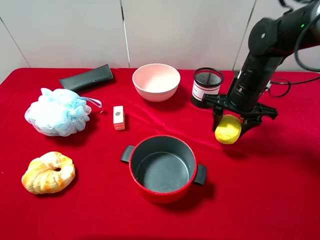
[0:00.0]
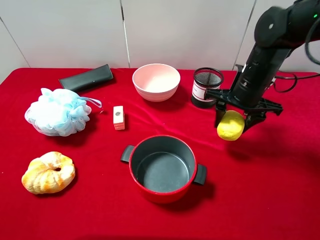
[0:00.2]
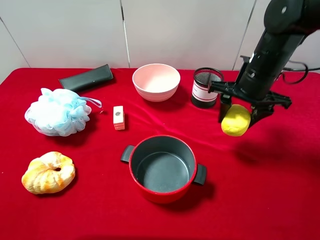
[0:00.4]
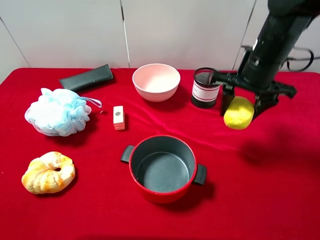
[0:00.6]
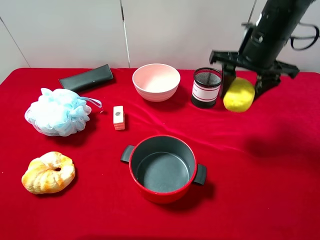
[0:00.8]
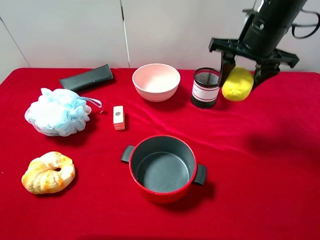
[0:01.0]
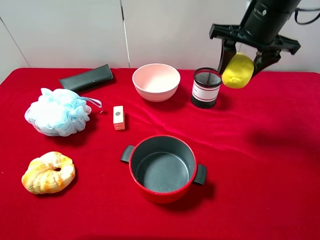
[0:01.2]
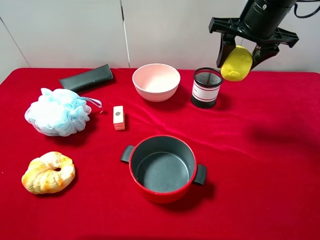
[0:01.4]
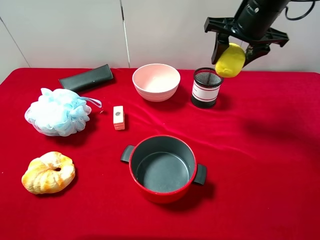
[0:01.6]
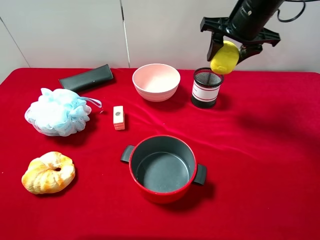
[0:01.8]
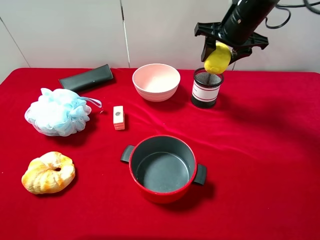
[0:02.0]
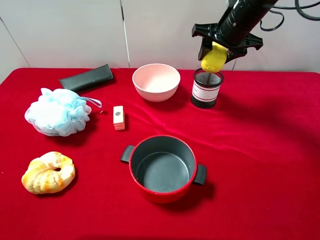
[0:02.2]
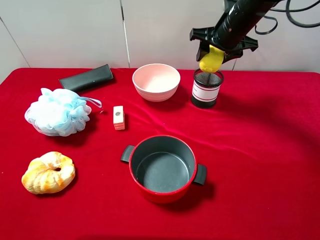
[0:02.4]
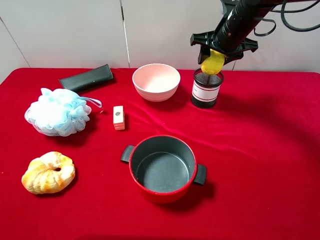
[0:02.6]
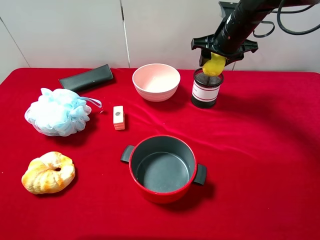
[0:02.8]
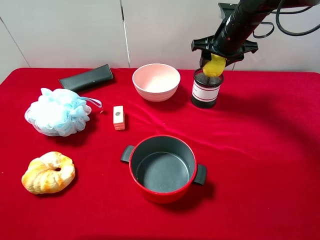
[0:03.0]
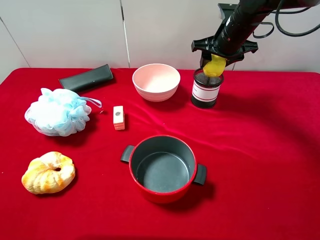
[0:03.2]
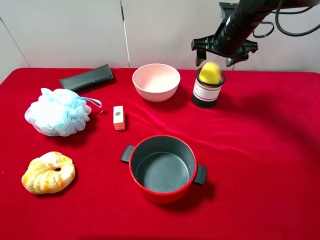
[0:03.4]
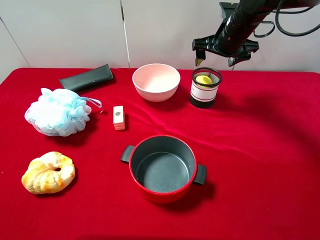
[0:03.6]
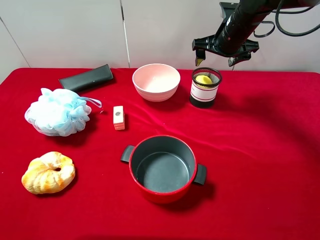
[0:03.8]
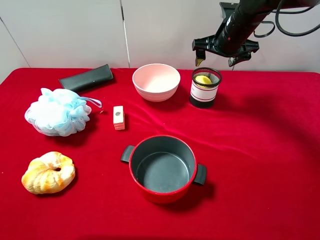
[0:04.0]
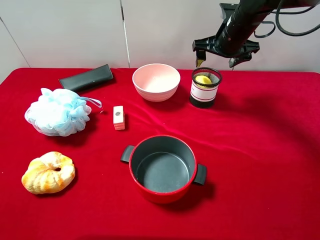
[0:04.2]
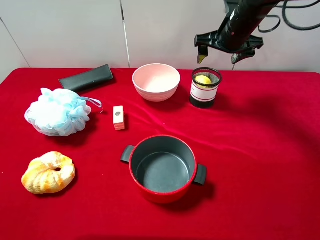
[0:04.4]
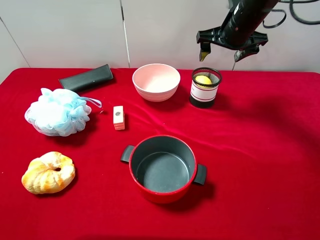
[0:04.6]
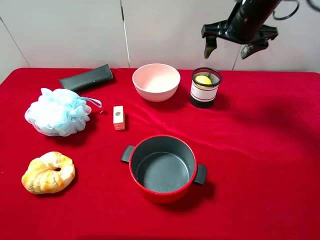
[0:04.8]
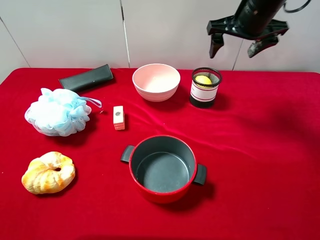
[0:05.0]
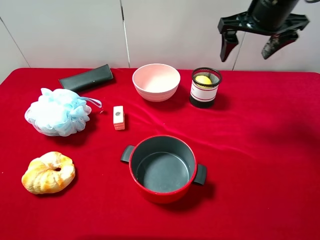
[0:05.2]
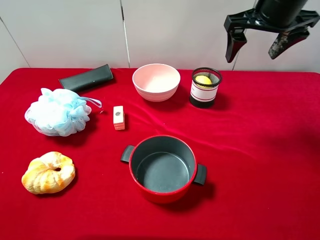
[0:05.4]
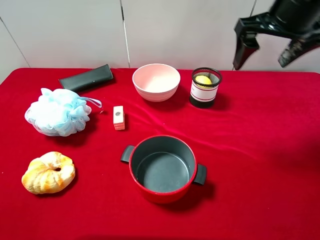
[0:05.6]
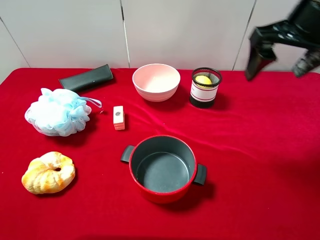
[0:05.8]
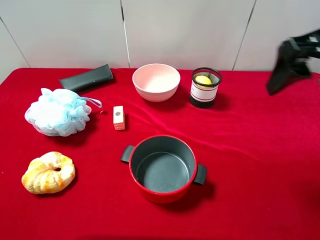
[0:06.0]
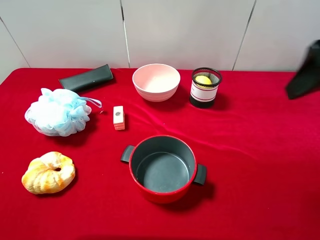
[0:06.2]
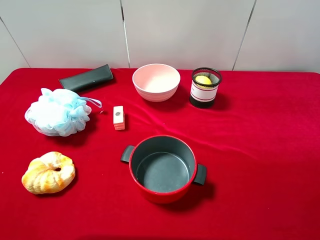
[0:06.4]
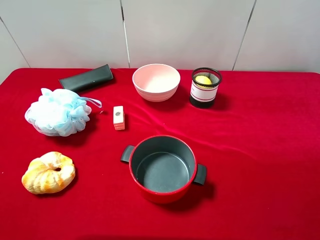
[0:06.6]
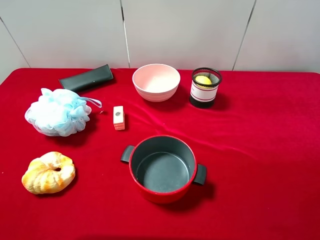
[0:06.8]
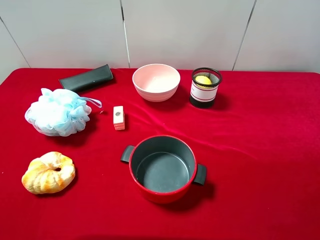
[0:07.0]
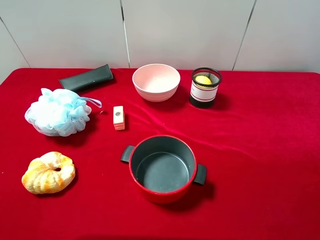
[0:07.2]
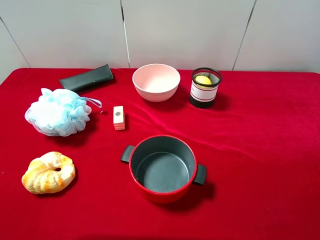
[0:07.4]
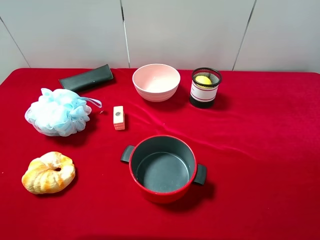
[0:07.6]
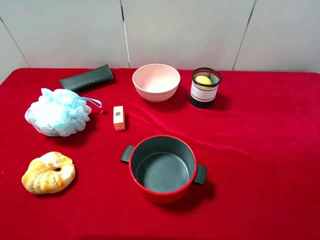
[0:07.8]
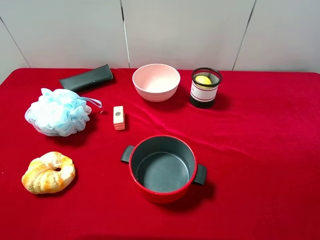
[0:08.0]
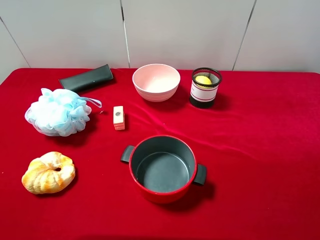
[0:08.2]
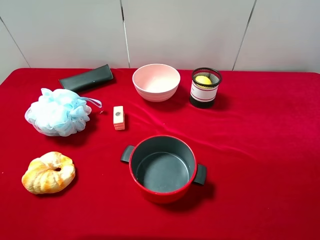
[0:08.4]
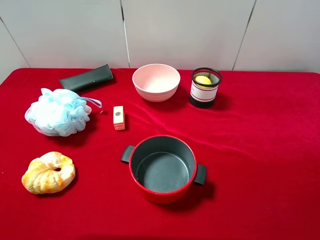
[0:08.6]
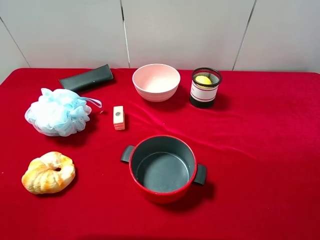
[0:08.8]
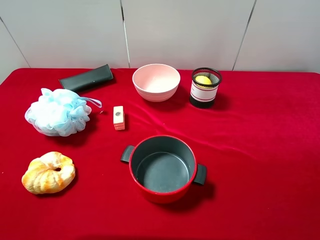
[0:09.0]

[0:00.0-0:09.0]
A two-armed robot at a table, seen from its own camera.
Task of the whole recording: pick up an item with a gripper and place it in a random container on the desktop.
0:00.0 to 0:01.6: The right gripper heads upward, covering about 15 cm.
0:01.6 to 0:03.0: The right gripper goes roughly 10 cm downward and forward.
0:03.0 to 0:04.4: The right gripper opens up.
0:04.4 to 0:06.0: The right gripper heads backward and upward, covering some 25 cm.
0:06.0 to 0:07.6: The right gripper heads backward and to the right, covering some 20 cm.
0:07.6 to 0:09.0: Both grippers stay about where they are.
